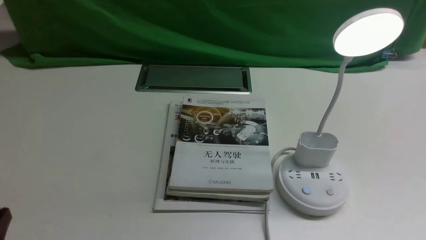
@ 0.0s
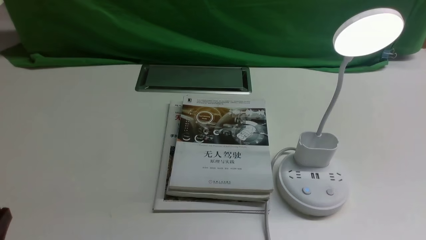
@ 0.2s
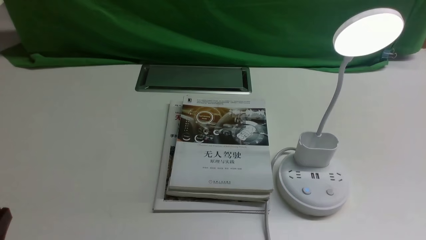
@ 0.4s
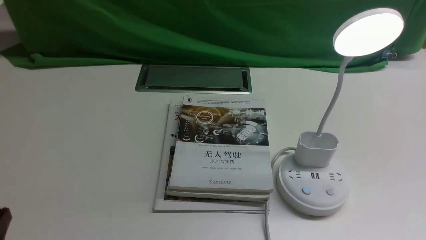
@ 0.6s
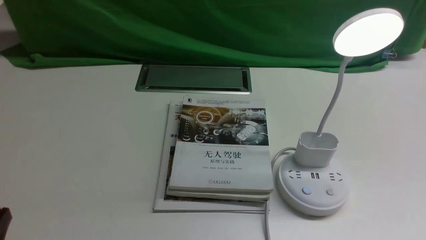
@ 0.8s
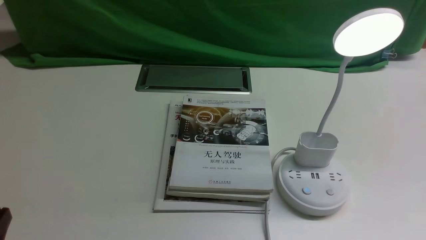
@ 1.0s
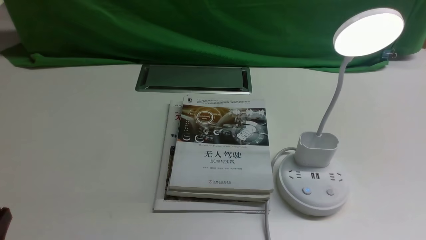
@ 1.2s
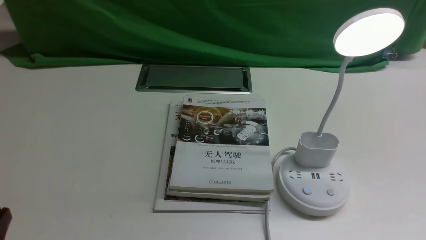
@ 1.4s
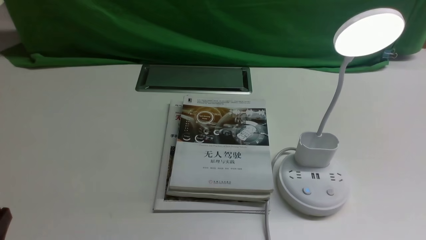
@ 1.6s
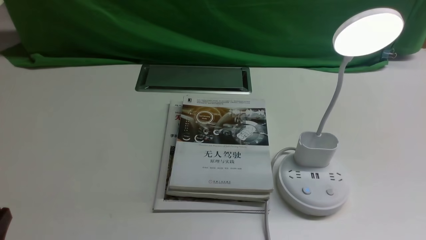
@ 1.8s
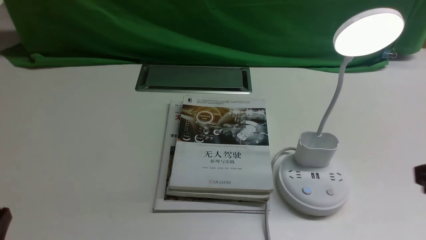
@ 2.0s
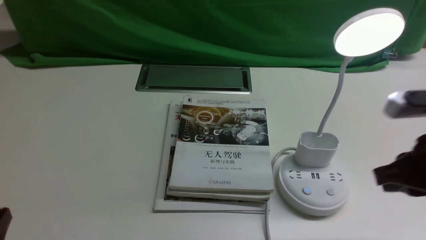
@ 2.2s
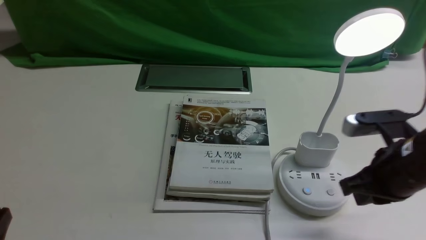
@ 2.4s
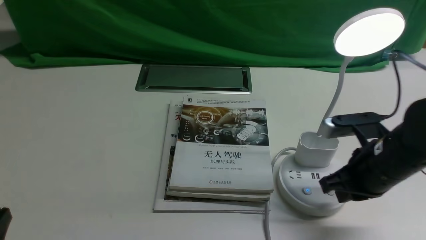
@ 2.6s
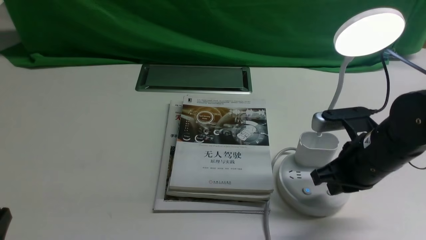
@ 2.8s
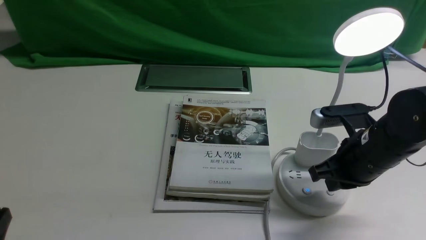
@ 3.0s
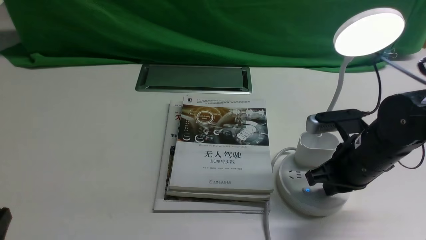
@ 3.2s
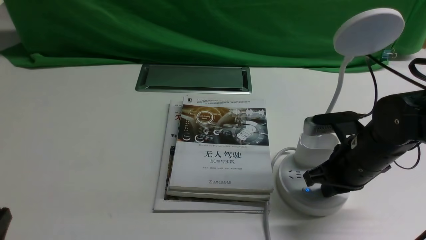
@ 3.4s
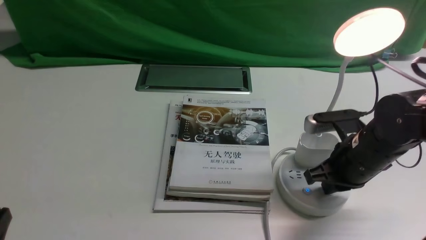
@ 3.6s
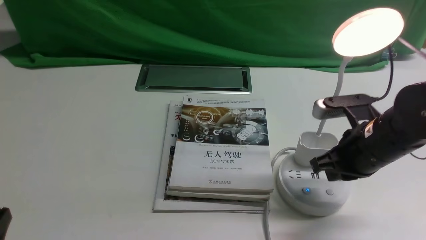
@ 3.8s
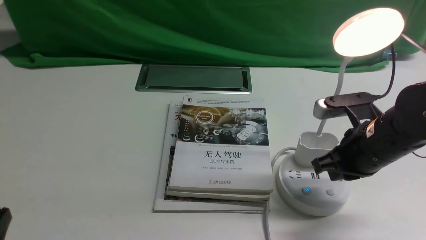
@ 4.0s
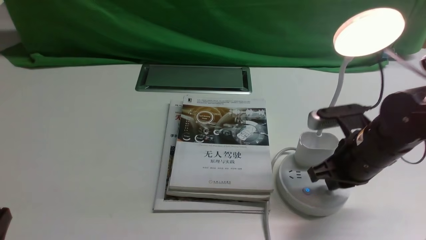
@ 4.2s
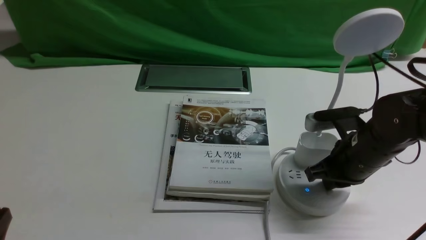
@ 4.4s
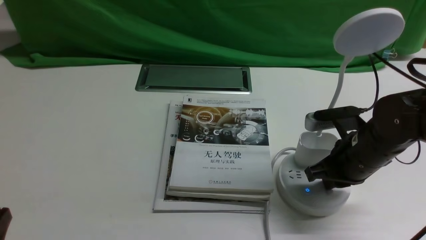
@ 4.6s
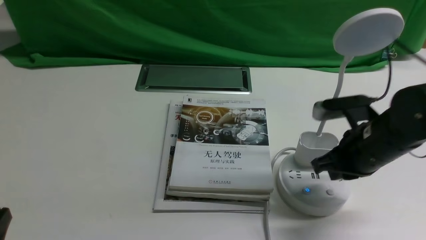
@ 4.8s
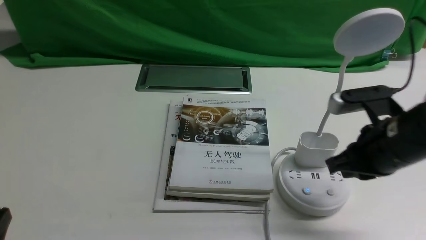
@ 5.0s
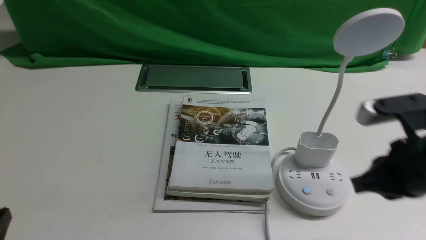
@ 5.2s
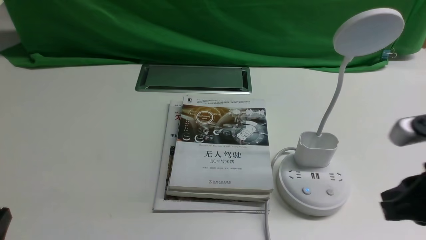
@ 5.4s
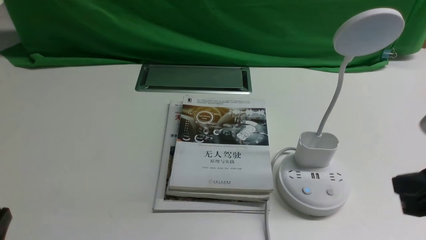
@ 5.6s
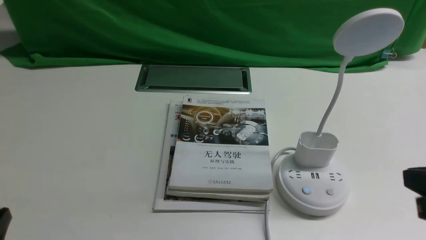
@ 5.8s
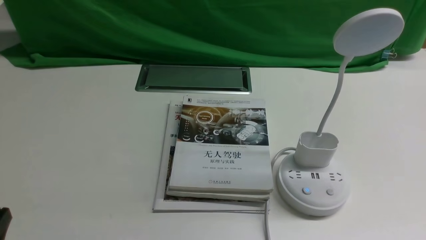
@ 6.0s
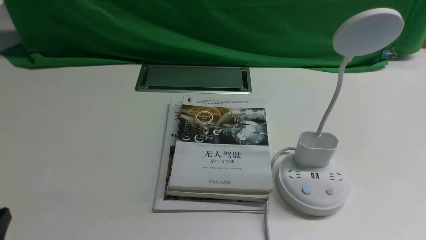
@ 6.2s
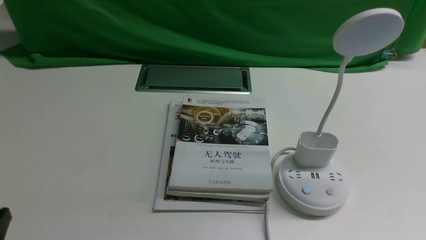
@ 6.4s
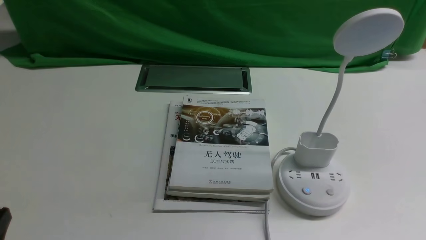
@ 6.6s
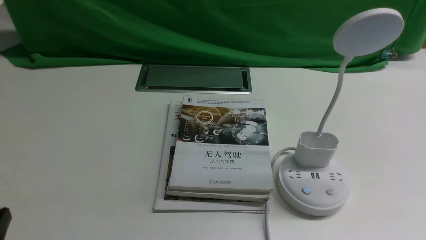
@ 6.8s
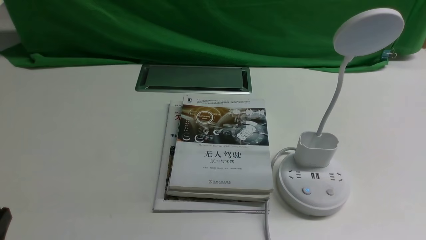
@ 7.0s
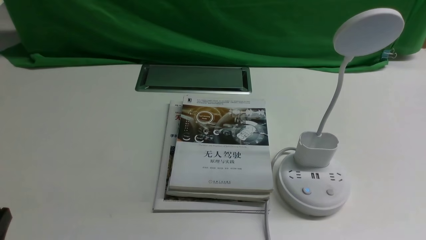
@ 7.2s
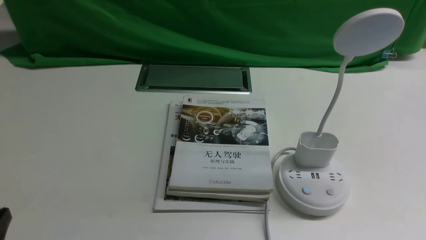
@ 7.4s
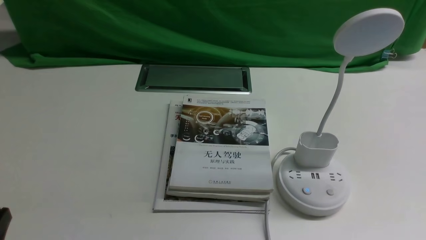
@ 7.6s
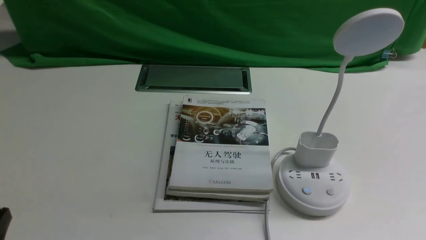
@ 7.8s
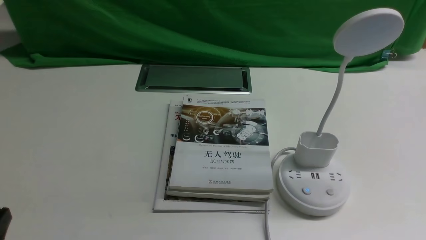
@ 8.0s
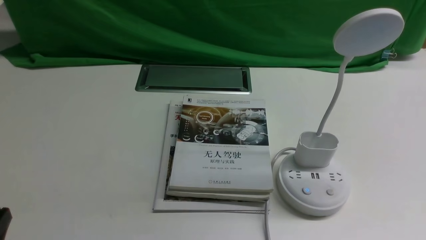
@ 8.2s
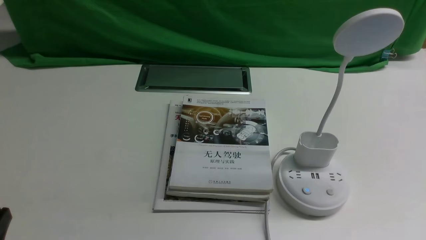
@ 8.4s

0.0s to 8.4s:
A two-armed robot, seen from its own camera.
Task of the whole recording: turn off the desk lamp on the white desktop by hand.
Step, 0.0s to 4.6s: use the right arm to press the button switch on the lamp holder.
1.4s to 2.8s: The right gripper moves forward and to the left, approximately 25 cm, and closes.
2.8s to 4.2s: There are only small adjustments of the grippers.
4.2s to 5.6s: The right gripper is displaced backward and upward by some 20 cm, and opens.
5.6s to 7.0s: The right gripper heads downward, backward and to the right, covering about 15 cm.
